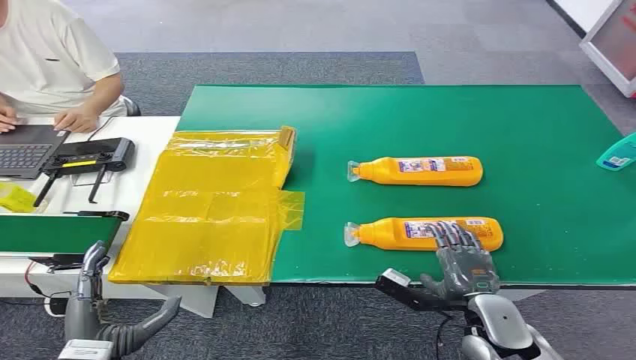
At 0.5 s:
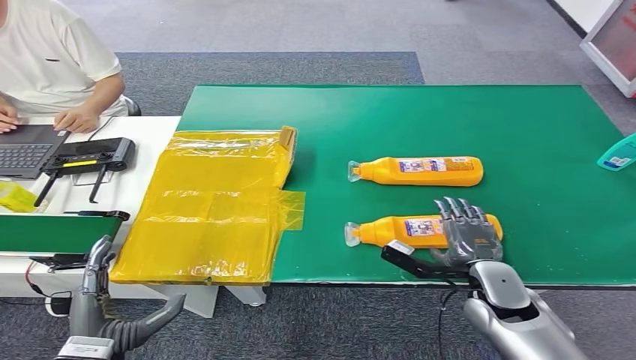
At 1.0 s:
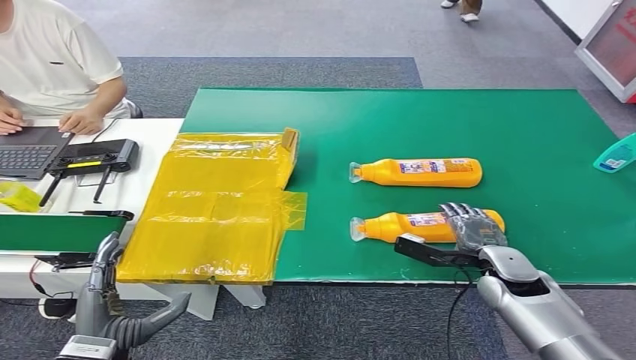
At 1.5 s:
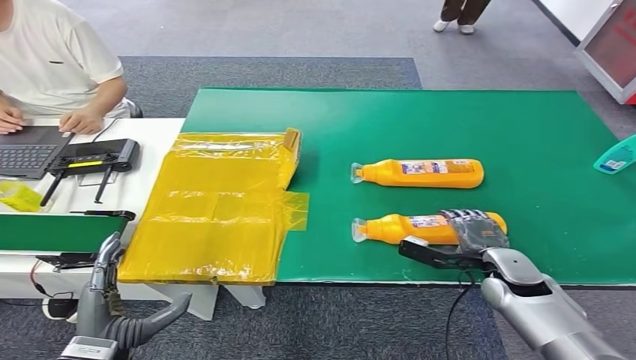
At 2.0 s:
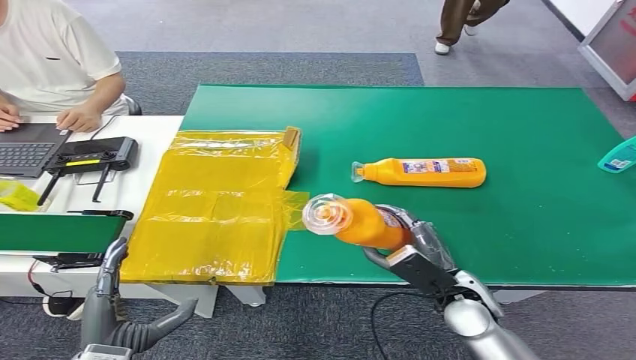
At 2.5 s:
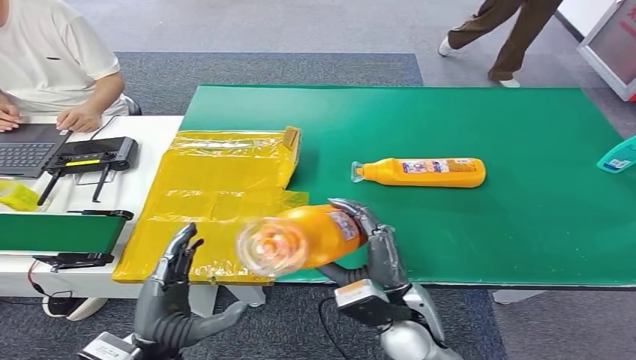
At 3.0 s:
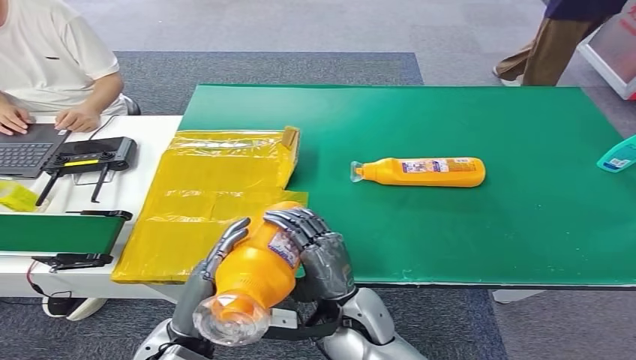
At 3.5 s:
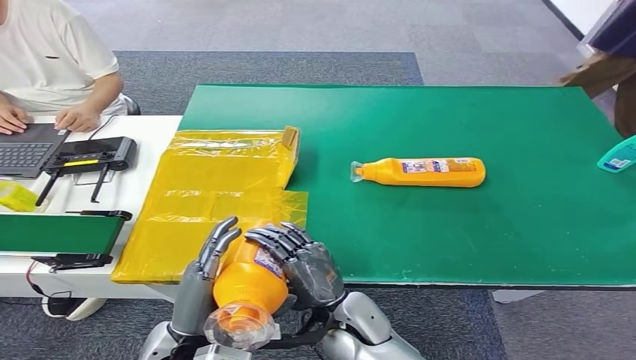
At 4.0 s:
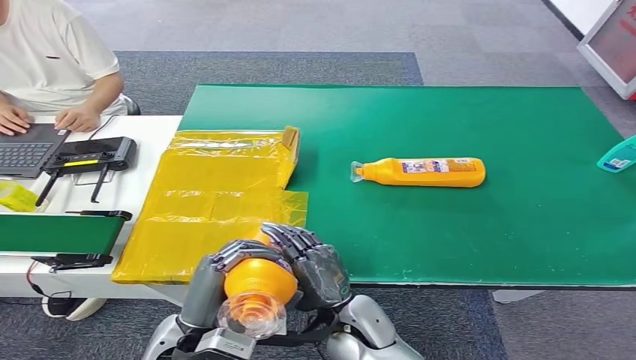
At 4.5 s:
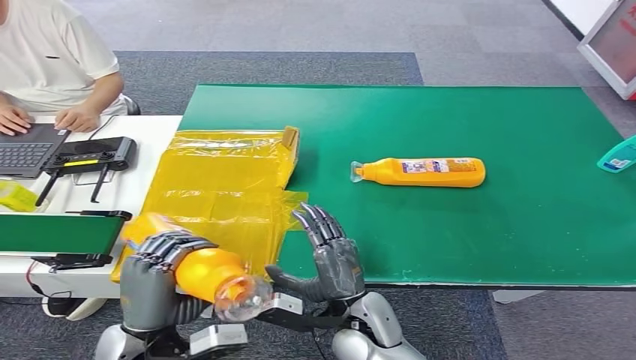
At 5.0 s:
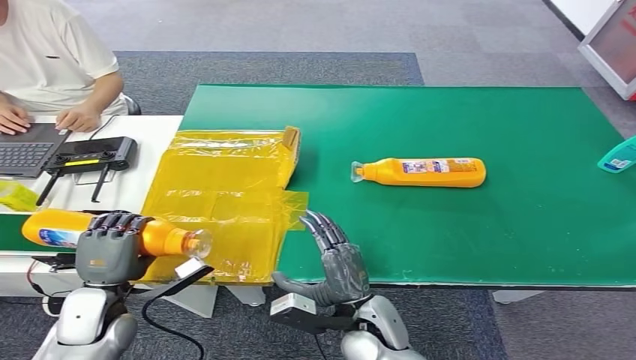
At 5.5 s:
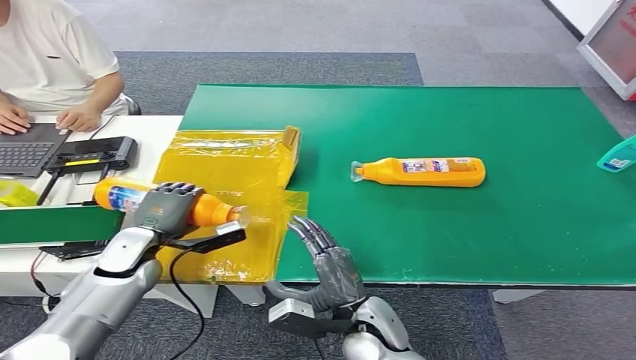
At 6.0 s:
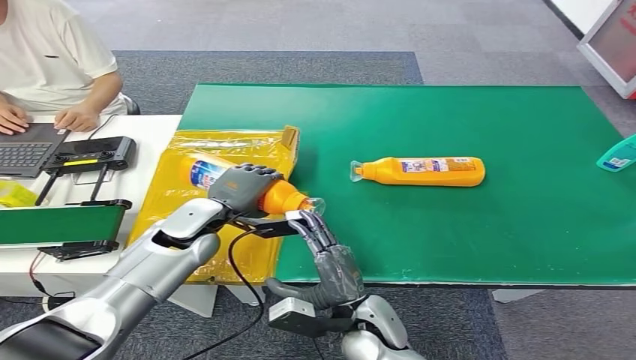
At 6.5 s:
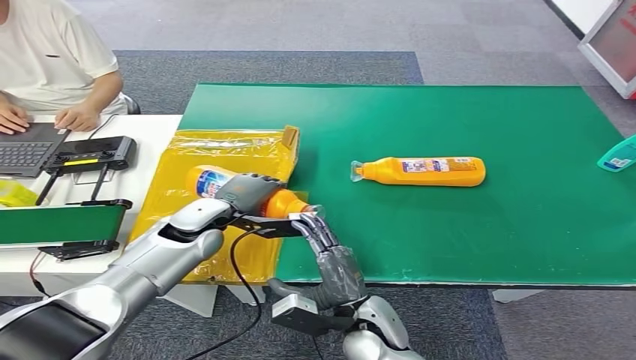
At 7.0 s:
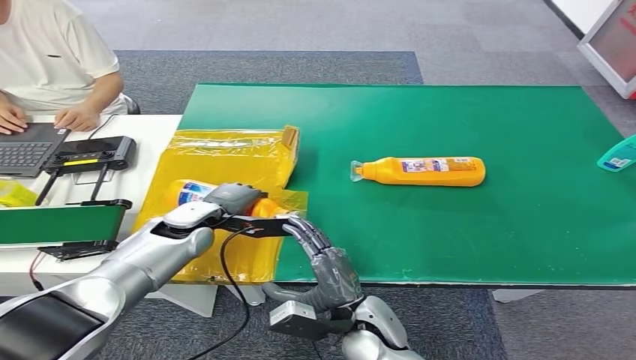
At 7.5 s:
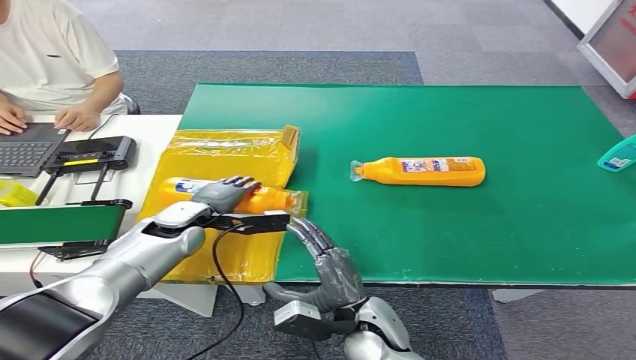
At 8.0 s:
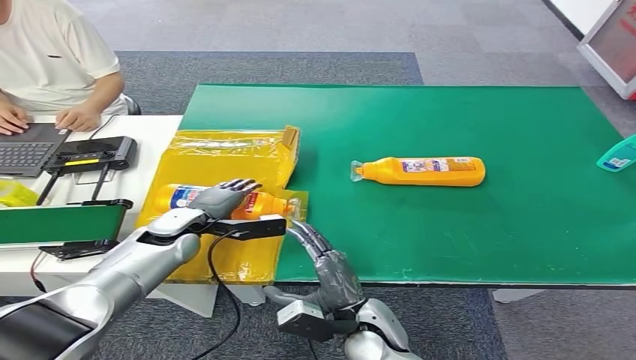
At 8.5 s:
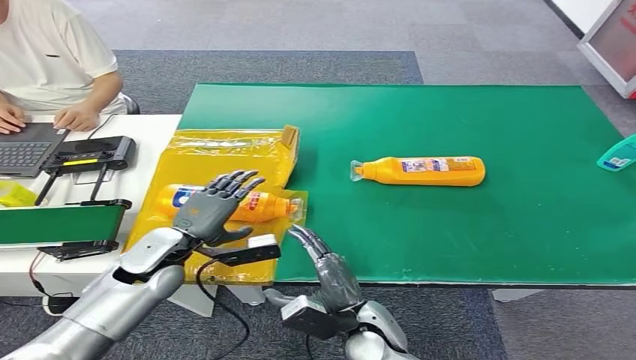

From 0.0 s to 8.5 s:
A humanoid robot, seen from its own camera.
Step, from 0.0 s to 2.0 s: Pick up the bottle from the table.
Step, from 4.0 s to 8.5 s: Turn the bottle to the front side.
From 2.0 s to 4.0 s: The left hand shifts some 10 cm to the right. The right hand heads to the left, covering about 15 cm.
From 4.0 s to 6.5 s: The left hand goes roughly 25 cm forward.
From 6.5 s to 8.5 s: The left hand moves backward and to the left, about 10 cm.
